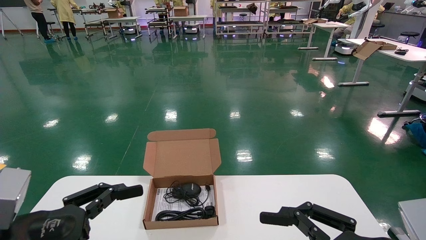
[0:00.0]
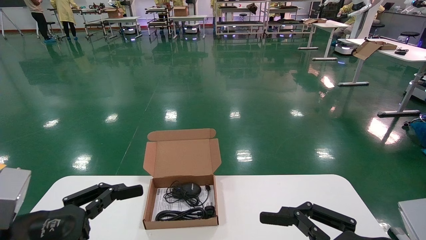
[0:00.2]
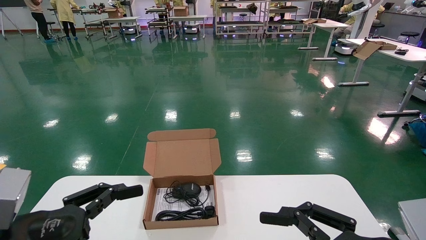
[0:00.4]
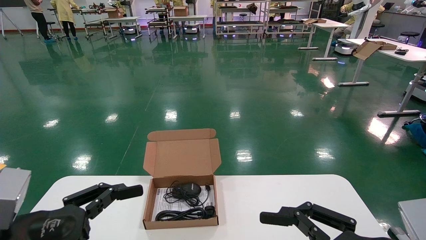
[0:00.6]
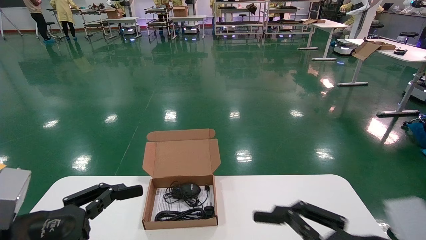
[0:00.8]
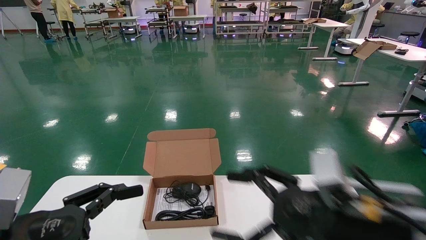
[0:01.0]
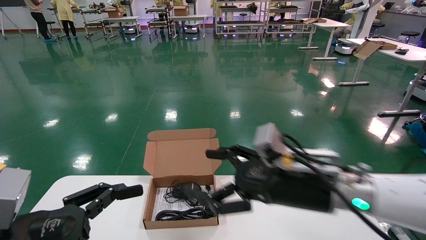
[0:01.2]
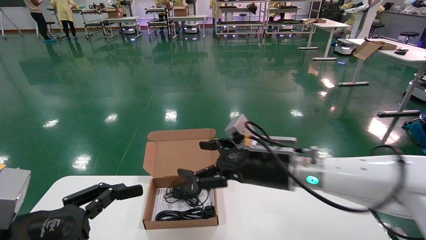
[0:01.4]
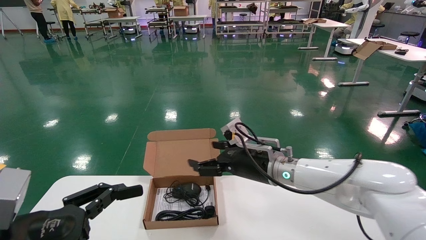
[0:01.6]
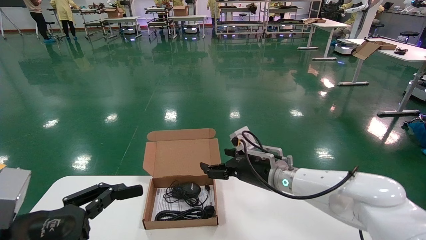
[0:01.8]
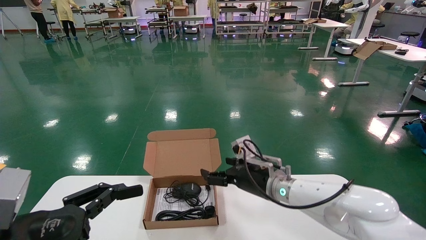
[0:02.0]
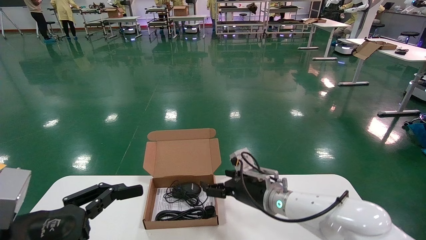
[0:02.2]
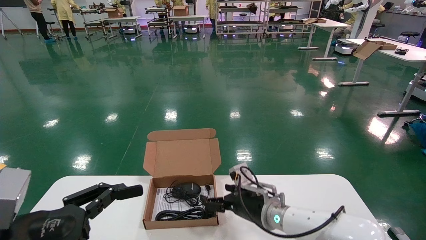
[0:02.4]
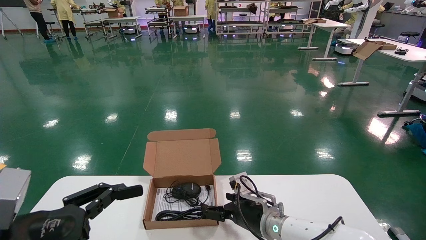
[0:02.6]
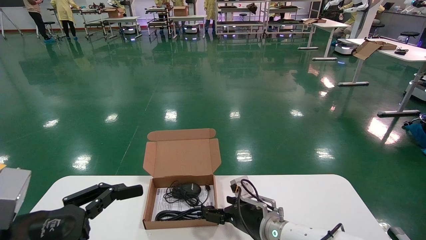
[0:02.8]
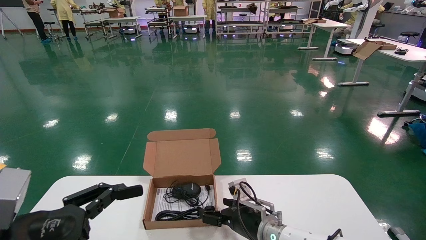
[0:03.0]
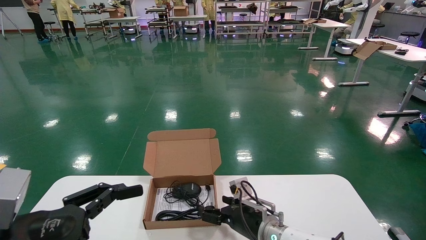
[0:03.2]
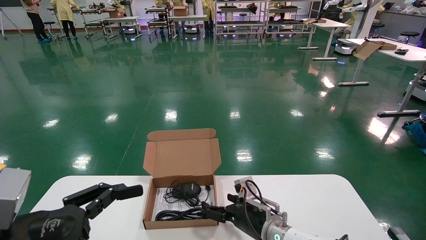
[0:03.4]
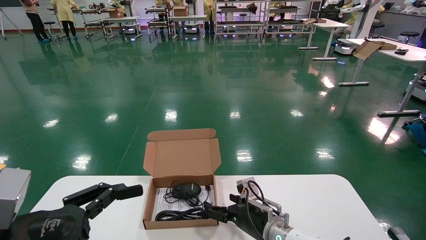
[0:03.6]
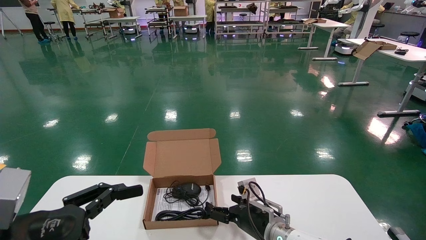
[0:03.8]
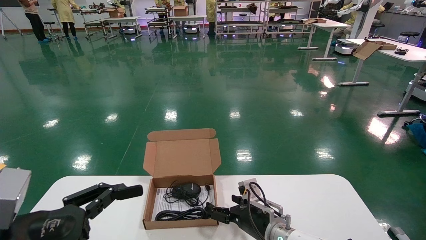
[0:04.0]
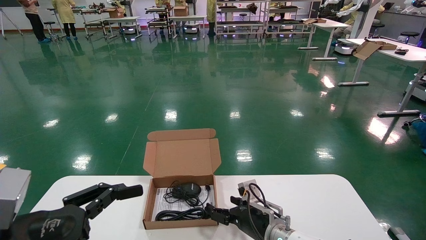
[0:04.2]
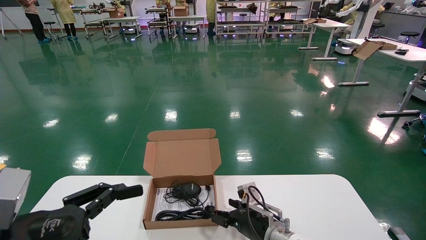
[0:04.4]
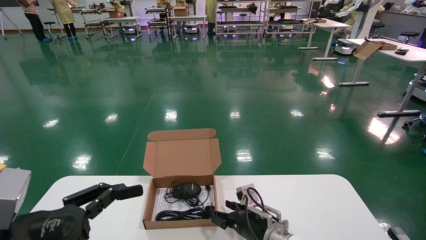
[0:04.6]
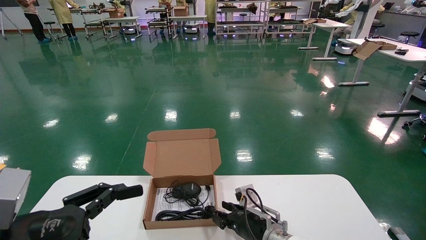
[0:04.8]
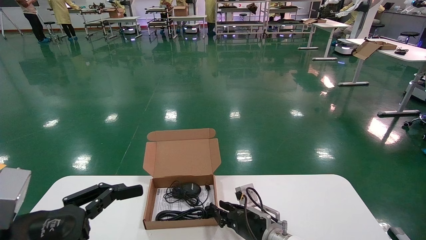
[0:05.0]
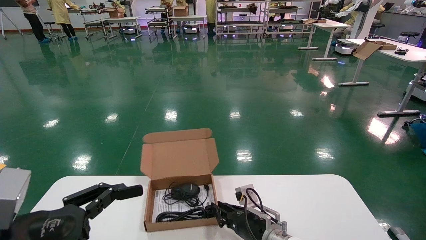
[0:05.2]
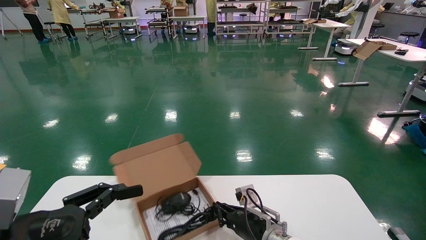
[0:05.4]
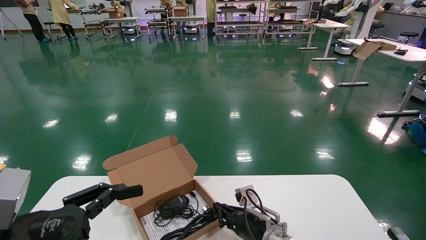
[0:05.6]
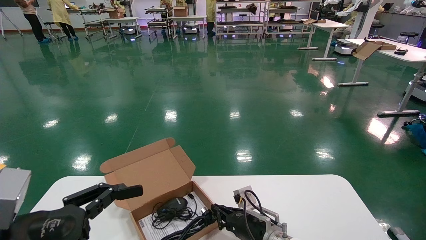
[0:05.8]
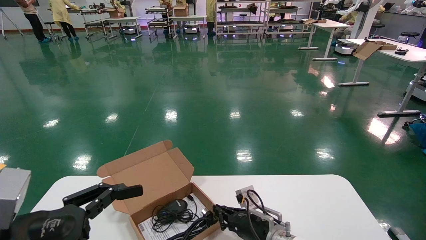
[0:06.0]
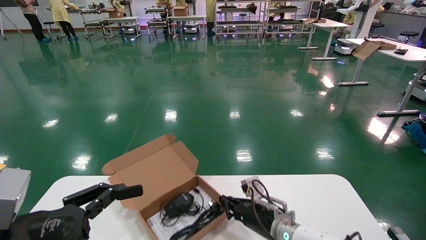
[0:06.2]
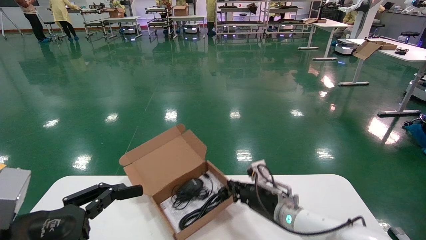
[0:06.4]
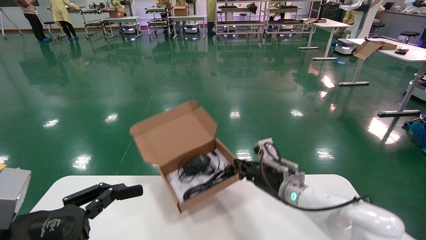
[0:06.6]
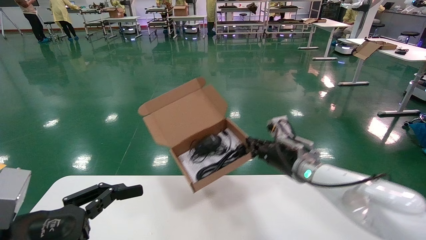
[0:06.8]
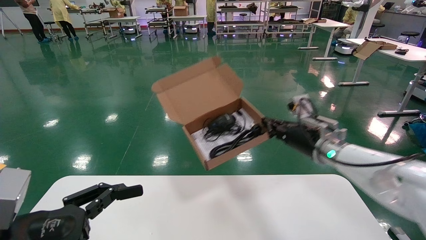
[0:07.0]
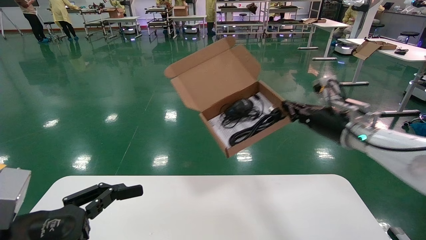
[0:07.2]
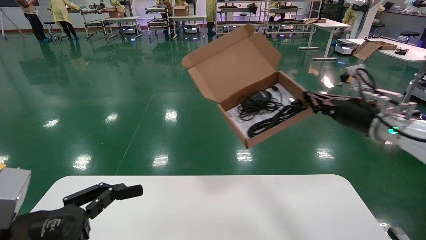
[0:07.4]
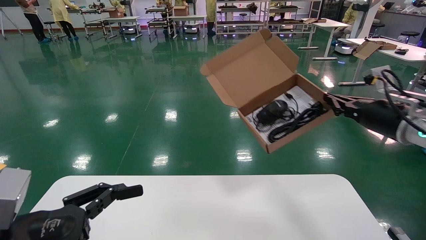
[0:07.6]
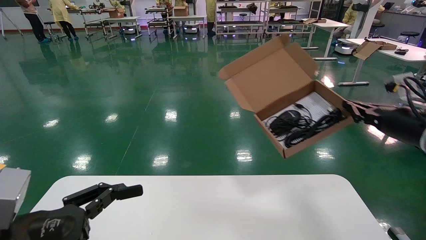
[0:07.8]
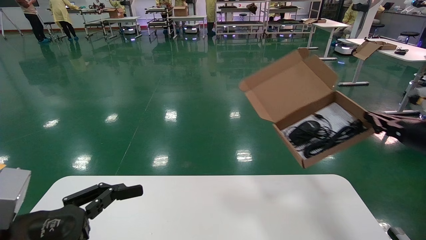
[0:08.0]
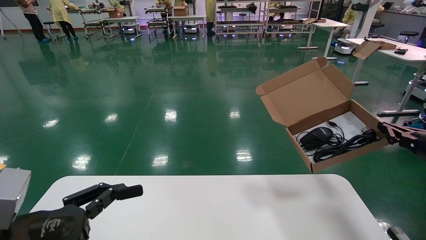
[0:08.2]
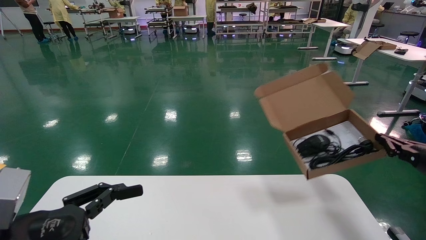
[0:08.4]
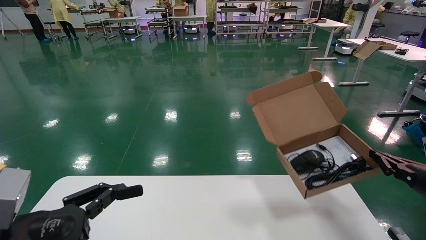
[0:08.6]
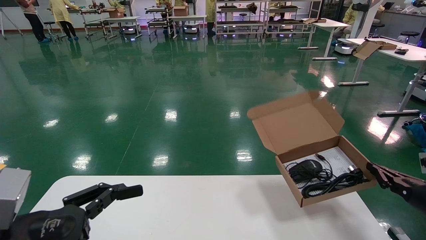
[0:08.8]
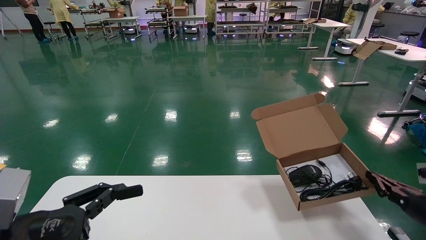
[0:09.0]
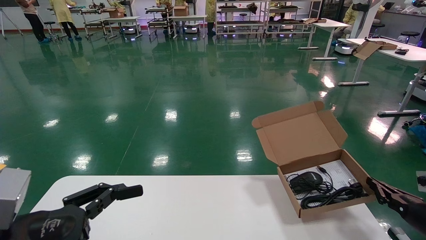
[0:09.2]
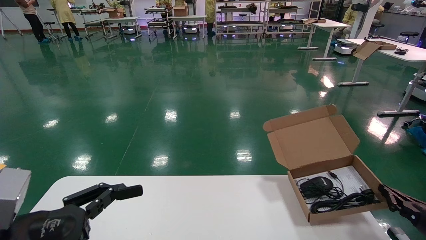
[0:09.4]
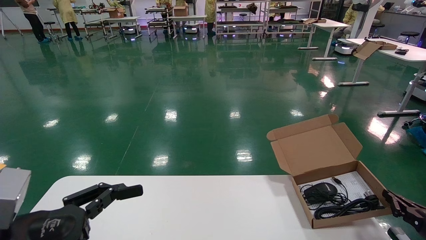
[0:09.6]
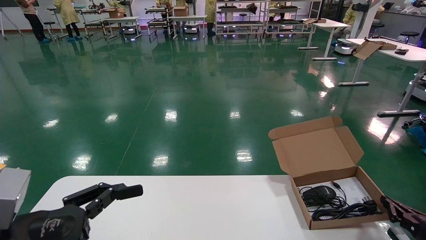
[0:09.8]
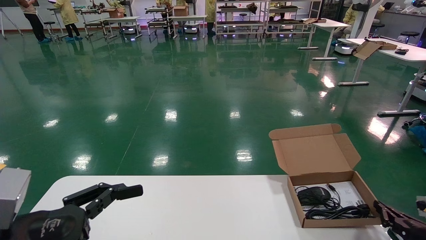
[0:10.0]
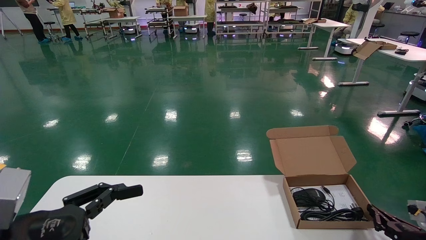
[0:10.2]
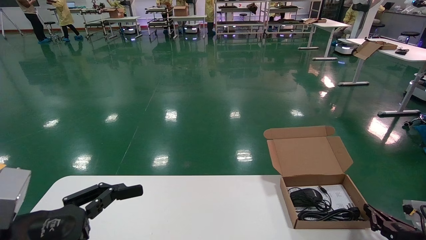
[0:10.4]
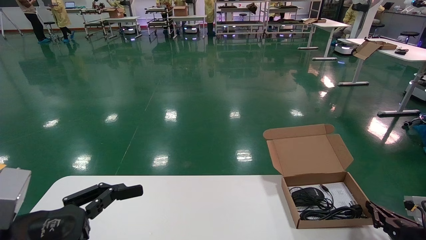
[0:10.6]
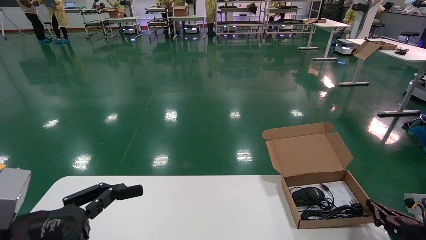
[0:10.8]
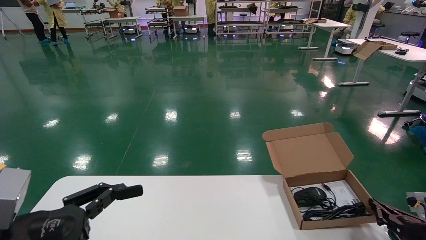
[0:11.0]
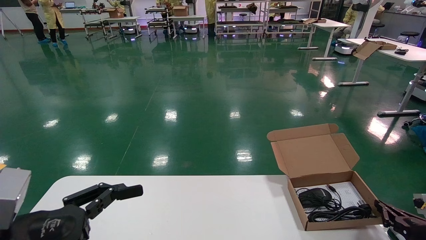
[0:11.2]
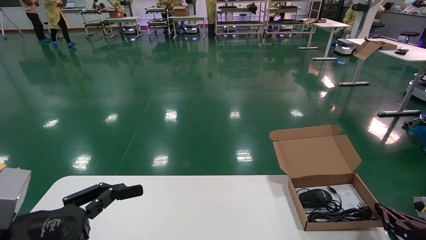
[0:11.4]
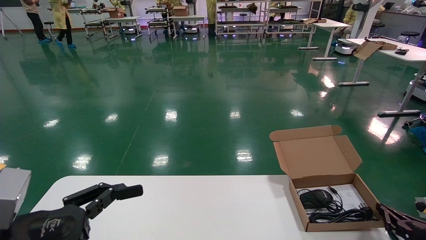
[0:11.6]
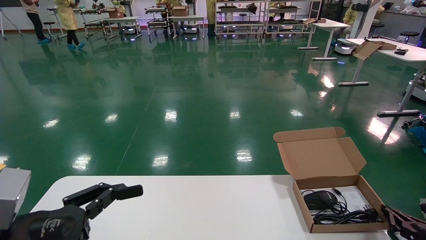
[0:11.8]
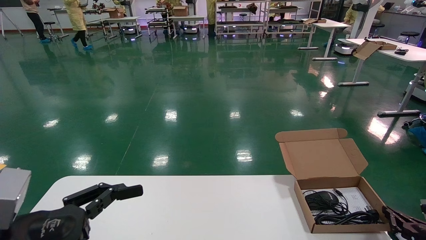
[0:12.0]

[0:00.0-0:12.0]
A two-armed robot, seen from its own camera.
Task of the whole recording: move the position of the storage box with accessories on the table.
Step, 0:01.0 to 0:05.8: Grab and pick up the open mouse box from the accessory packaging area.
0:00.0 to 0:01.6: The right gripper moves forward and to the left, roughly 30 cm.
0:01.6 to 0:03.0: The right gripper shifts about 15 cm downward.
0:03.0 to 0:04.4: There are only small adjustments of the grippers.
0:04.4 to 0:06.0: The right gripper closes.
0:06.0 to 0:07.6: The right gripper travels upward and to the right by about 35 cm.
0:07.6 to 0:09.0: The right gripper travels downward and to the right by roughly 20 cm.
0:09.0 to 0:10.4: The right gripper heads downward, covering roughly 10 cm.
0:10.4 to 0:12.0: There are only small adjustments of the grippers.

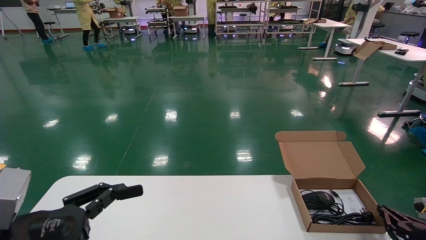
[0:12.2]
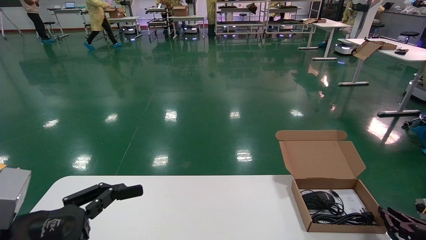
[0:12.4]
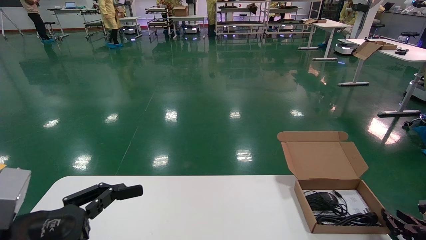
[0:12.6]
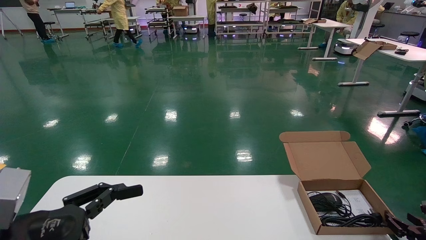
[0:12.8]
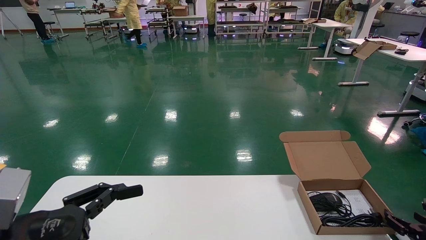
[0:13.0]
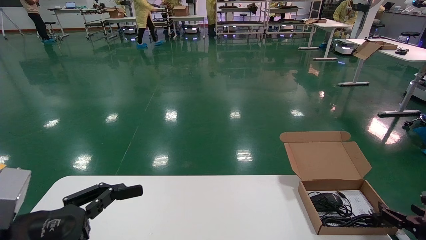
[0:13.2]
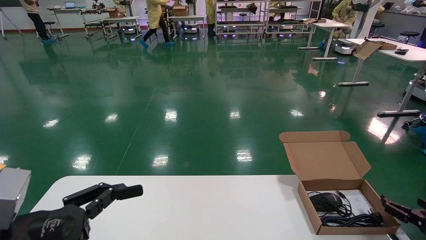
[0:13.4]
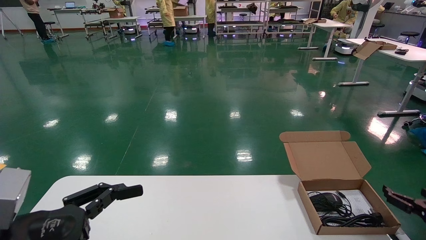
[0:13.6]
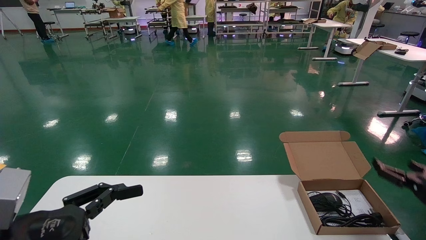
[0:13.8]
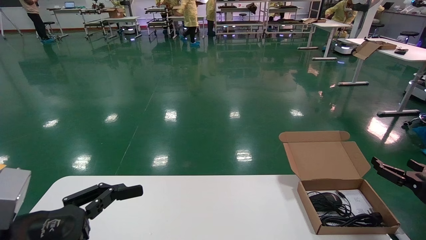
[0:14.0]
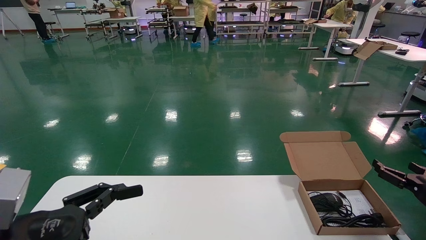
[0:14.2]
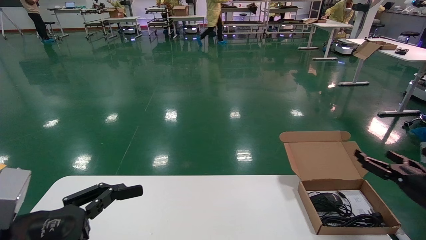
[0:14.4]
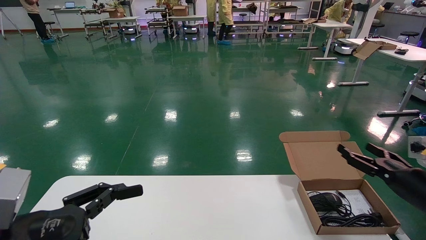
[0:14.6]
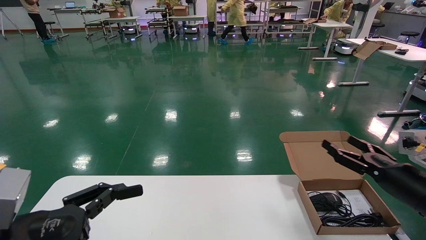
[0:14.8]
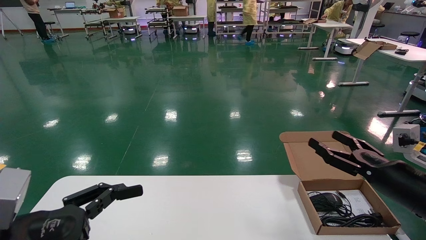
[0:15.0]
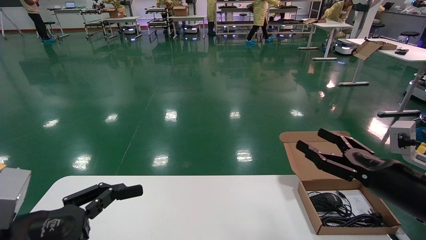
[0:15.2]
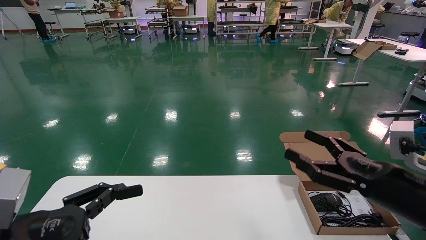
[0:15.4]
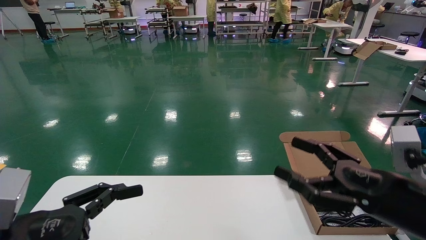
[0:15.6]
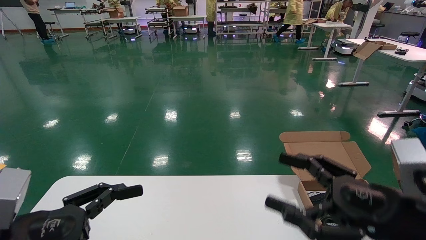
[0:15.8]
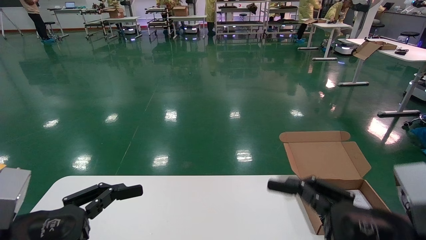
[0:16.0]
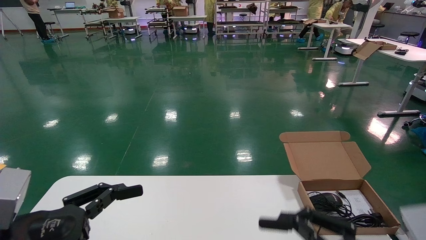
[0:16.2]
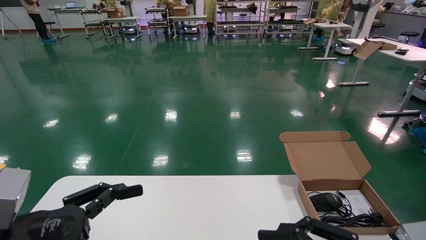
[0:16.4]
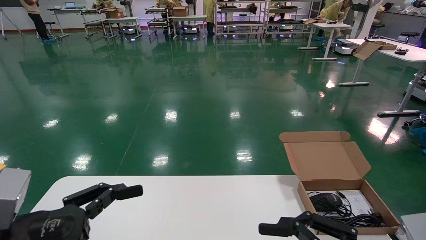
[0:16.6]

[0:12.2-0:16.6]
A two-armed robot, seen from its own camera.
Task of the whole recording: move the position of the storage box with accessories on the table.
0:12.2 to 0:13.6: The right gripper moves upward, about 5 cm, and opens up.
0:13.6 to 0:15.2: The right gripper heads to the left, upward and backward, covering about 20 cm.
0:15.2 to 0:16.6: The right gripper is displaced backward and to the left by approximately 15 cm.
